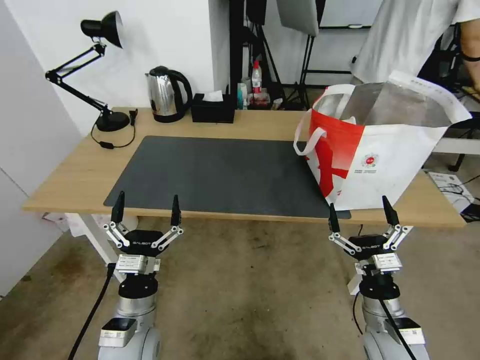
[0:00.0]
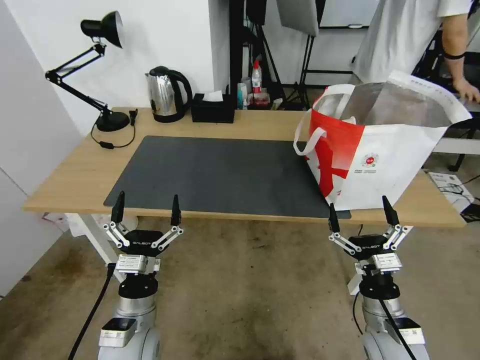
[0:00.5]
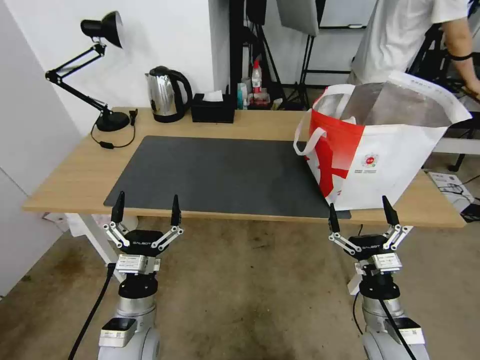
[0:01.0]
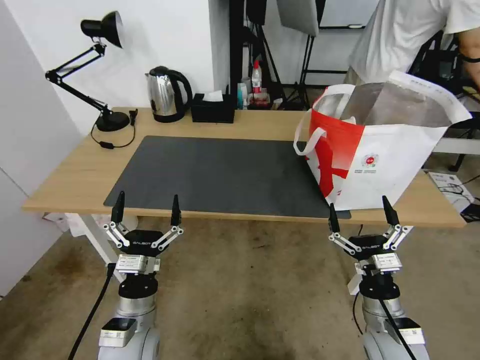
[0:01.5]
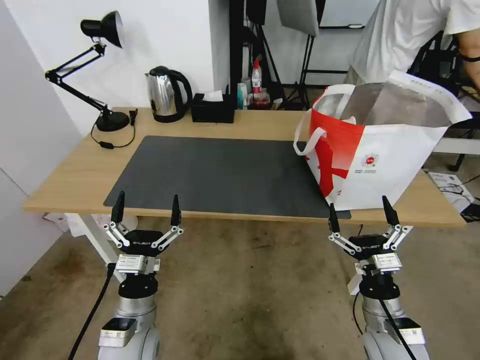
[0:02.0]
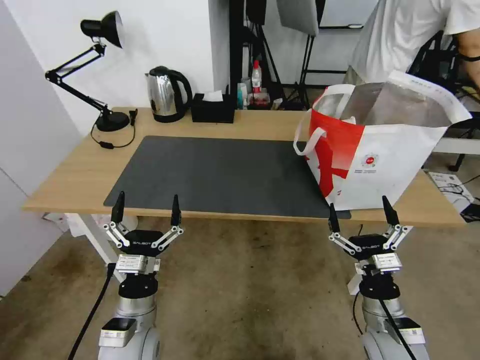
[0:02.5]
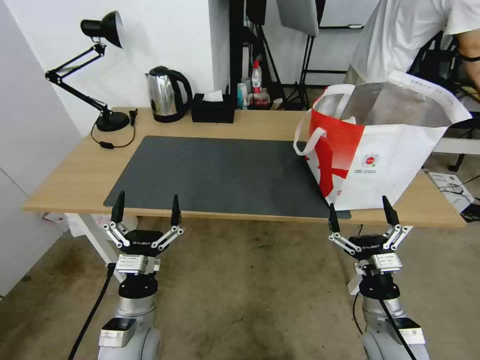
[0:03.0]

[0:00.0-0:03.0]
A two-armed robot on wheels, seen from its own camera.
Task of the whole recording: Pick up the trash from the table and place it into the takeout bag.
0:00.0 to 0:03.0: Both grippers stay put.
